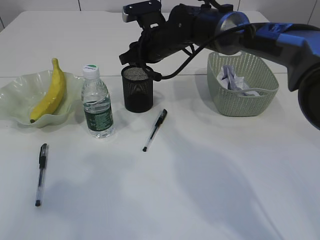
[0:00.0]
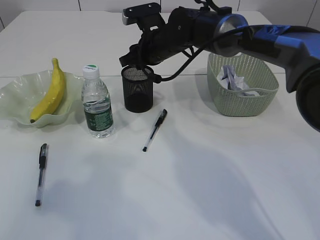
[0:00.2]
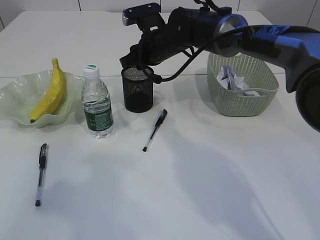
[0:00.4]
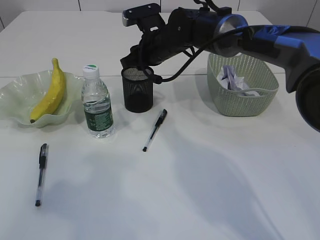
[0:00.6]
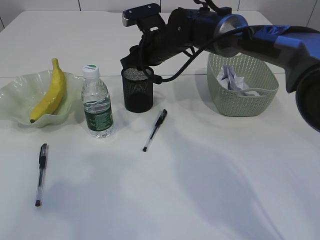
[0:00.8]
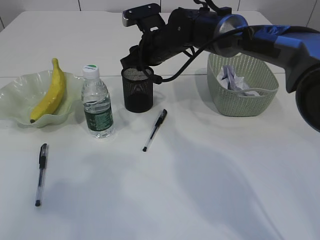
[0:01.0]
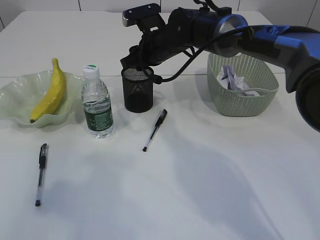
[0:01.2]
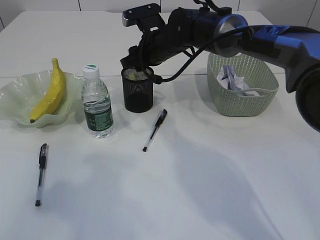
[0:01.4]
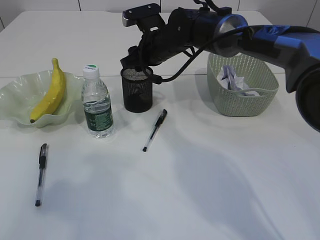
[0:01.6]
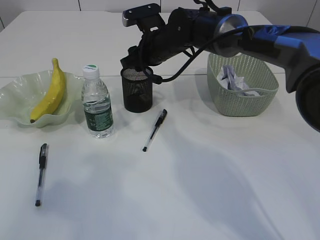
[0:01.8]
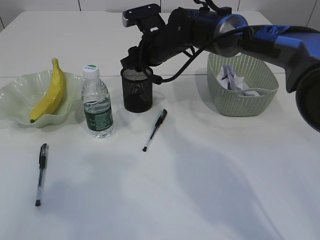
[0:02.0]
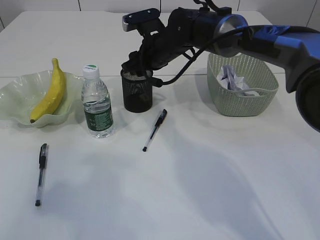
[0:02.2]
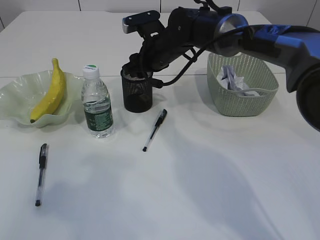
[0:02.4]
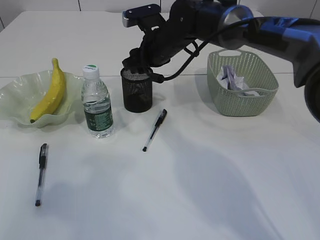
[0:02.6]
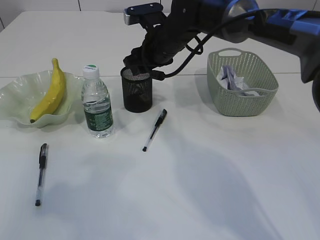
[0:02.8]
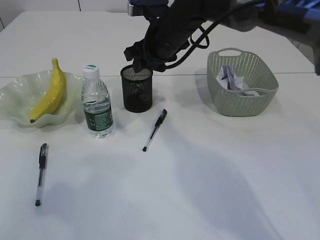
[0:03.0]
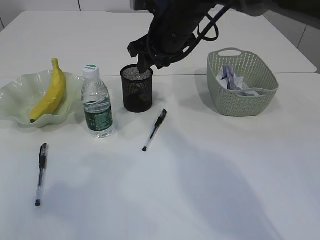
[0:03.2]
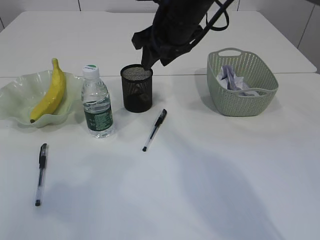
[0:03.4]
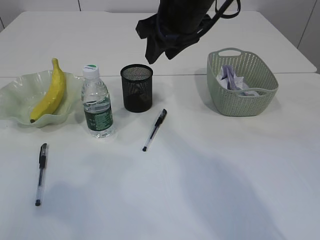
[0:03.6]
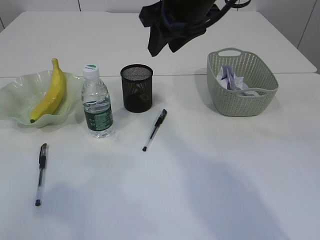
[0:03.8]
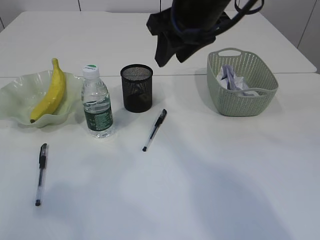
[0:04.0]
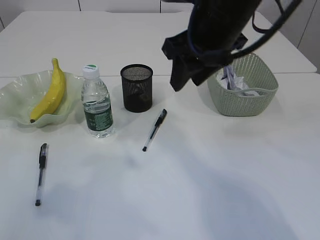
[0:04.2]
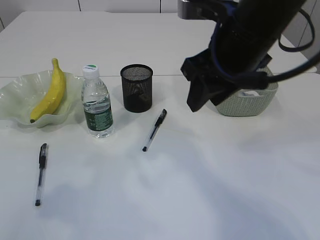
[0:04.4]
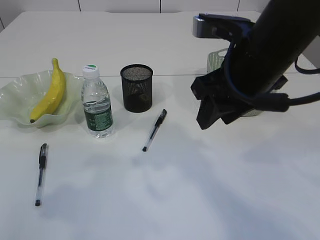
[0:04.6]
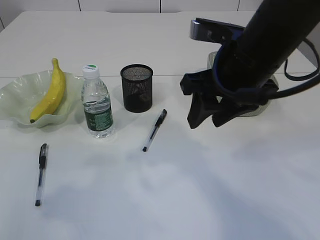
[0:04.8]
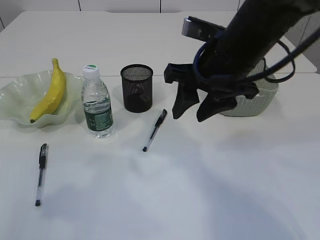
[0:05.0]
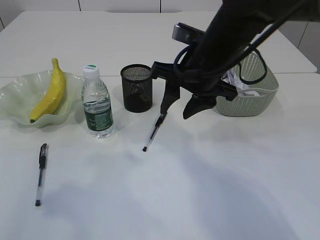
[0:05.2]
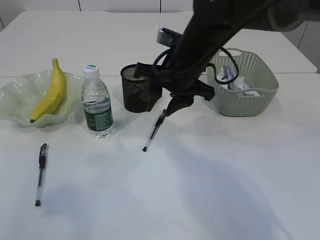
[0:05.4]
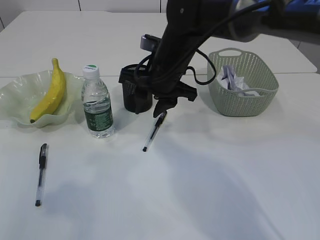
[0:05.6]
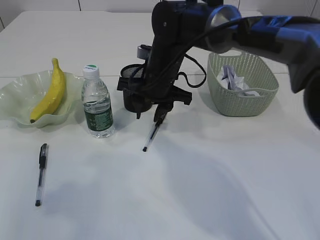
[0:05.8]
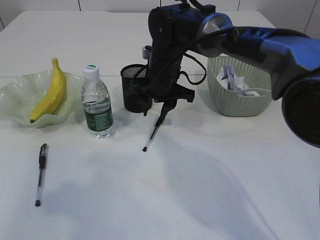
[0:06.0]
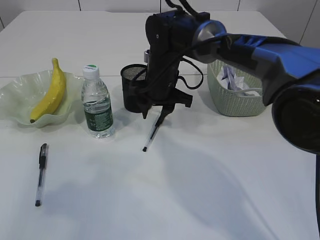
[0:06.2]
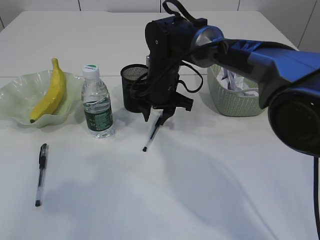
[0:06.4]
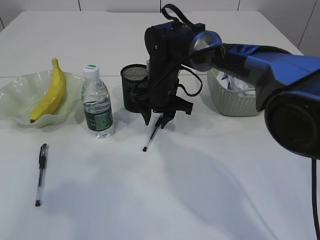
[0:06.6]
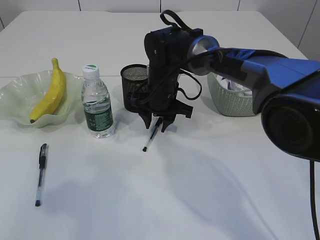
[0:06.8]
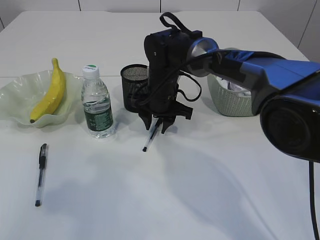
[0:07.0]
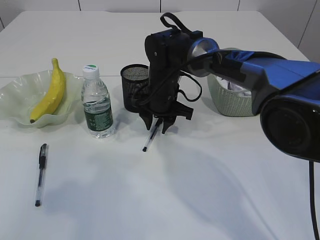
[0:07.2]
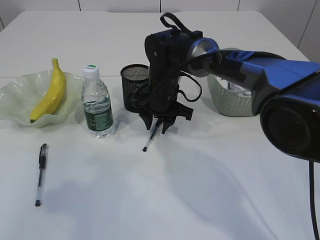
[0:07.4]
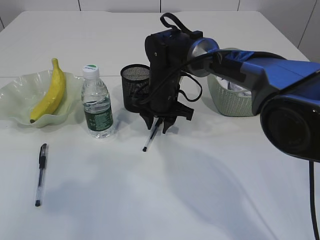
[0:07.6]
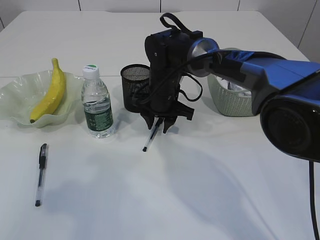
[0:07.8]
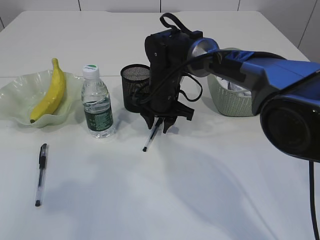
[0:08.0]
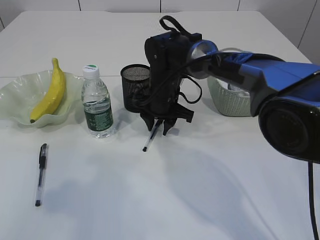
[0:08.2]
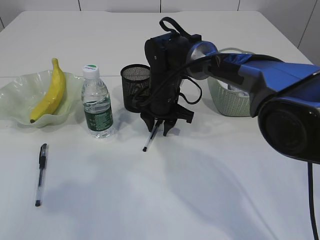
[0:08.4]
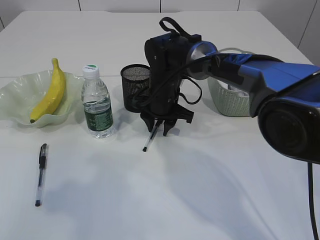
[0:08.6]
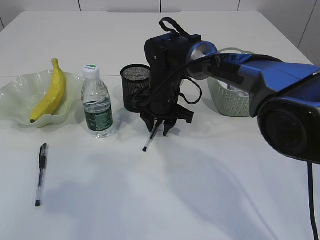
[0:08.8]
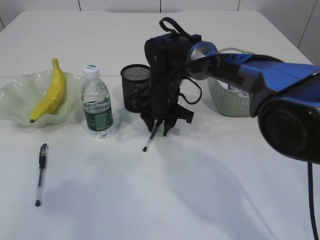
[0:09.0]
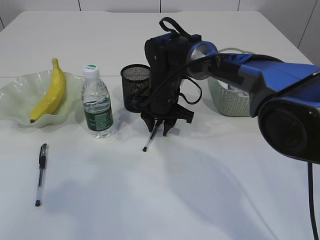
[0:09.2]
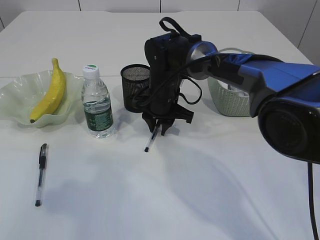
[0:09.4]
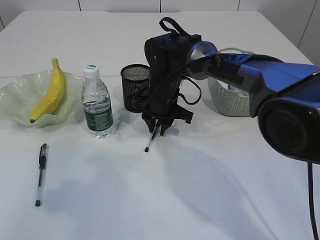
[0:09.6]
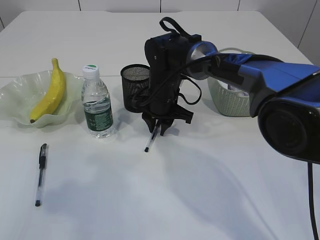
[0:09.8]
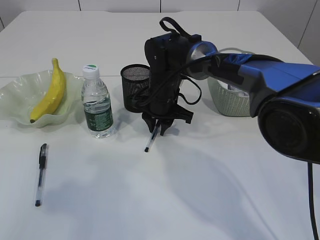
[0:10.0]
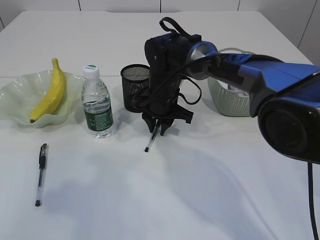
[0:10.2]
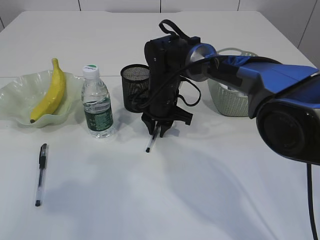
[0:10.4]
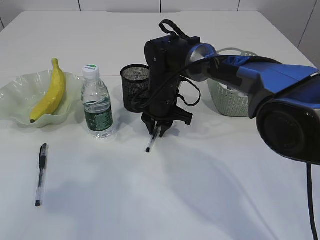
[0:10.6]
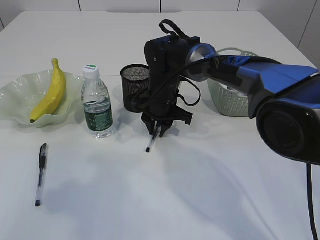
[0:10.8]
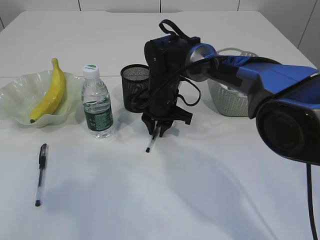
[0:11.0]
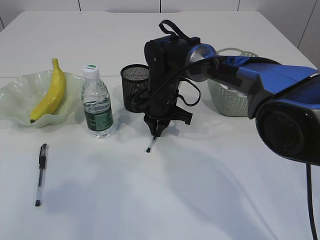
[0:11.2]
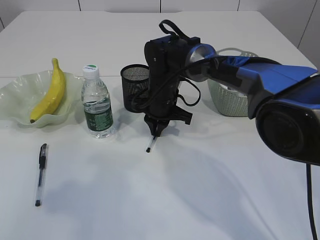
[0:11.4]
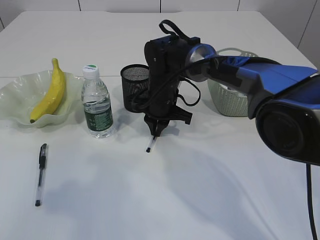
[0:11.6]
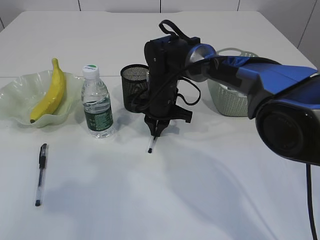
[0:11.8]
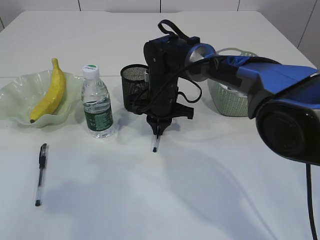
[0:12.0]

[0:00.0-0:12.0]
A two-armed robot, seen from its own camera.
Step, 0:00.0 to 0:02.6: Place the eraser into the pen holder.
0:00.0 to 0:01.6: Neither gripper changes place.
0:01.6 to 0:03.0: The grippers make only small movements.
0:03.0 to 0:04.4: The right gripper moves backward, upward and to the right, about 20 cm.
0:04.4 to 0:06.0: The right gripper is displaced downward, forward and to the left by some 20 cm.
0:06.0 to 0:07.6: The grippers move only a little.
0:07.6 to 0:10.4: The two grippers keep their place.
0:10.4 to 0:12.0: The grippers stay close to where they were, moving slightly.

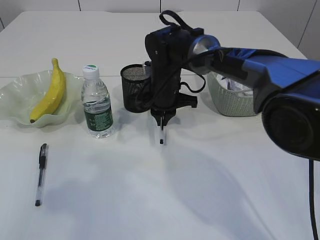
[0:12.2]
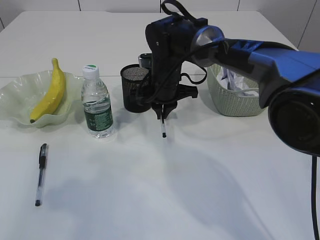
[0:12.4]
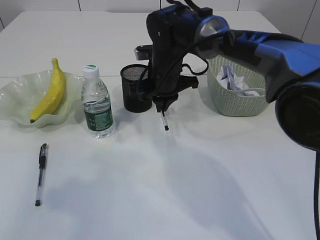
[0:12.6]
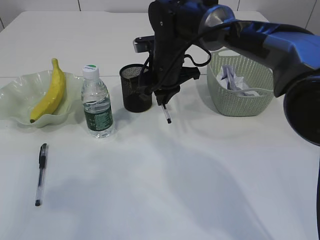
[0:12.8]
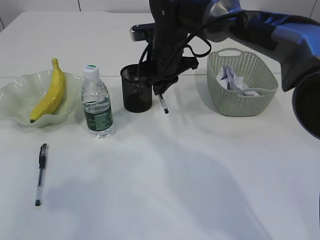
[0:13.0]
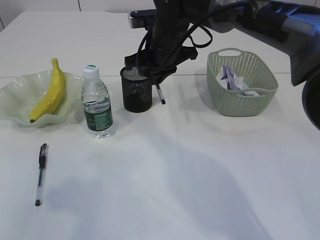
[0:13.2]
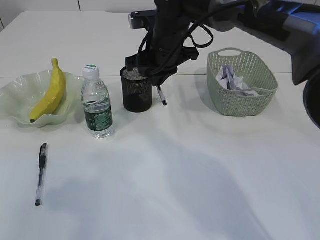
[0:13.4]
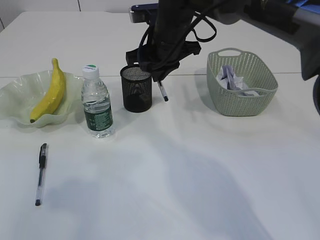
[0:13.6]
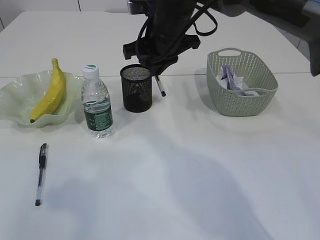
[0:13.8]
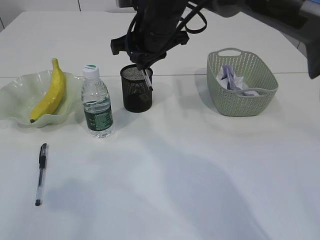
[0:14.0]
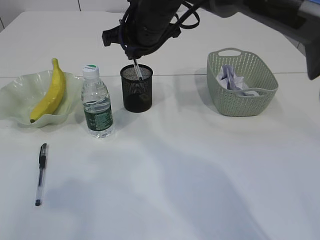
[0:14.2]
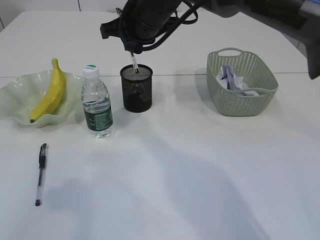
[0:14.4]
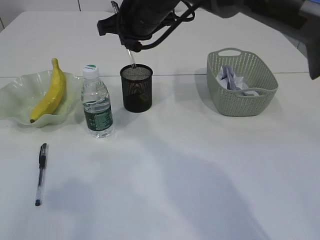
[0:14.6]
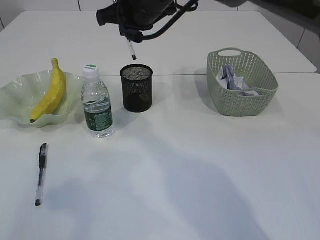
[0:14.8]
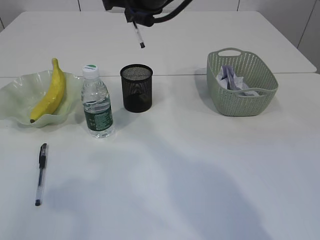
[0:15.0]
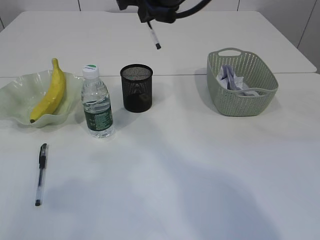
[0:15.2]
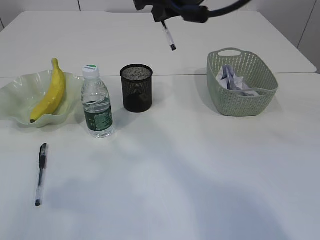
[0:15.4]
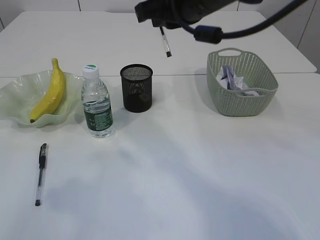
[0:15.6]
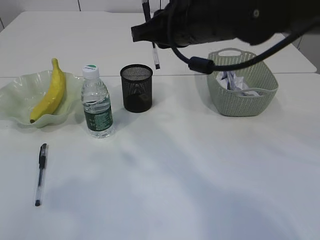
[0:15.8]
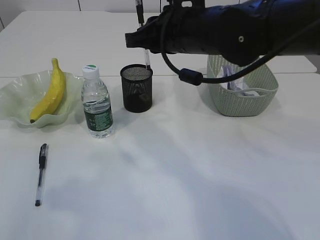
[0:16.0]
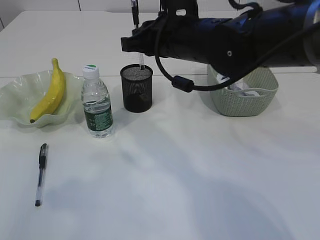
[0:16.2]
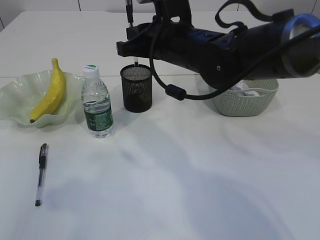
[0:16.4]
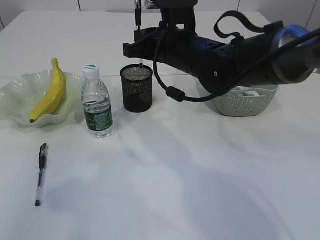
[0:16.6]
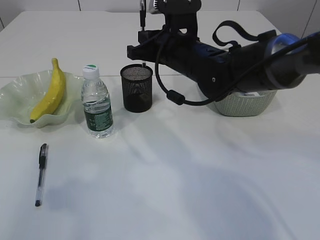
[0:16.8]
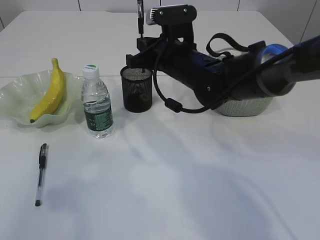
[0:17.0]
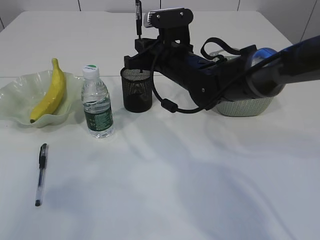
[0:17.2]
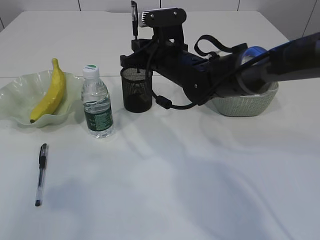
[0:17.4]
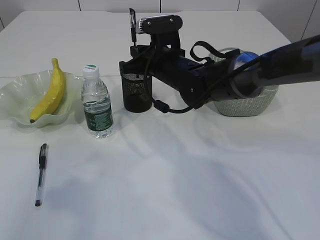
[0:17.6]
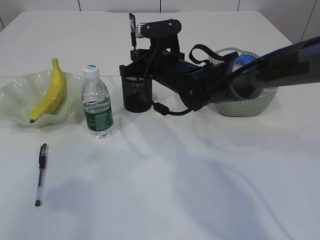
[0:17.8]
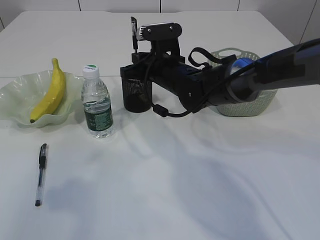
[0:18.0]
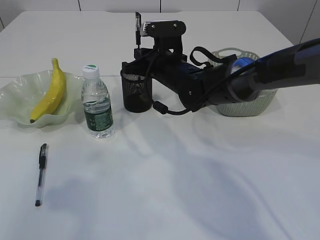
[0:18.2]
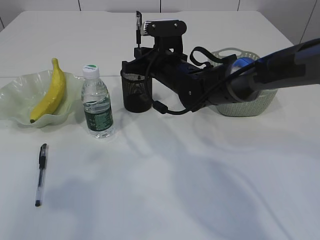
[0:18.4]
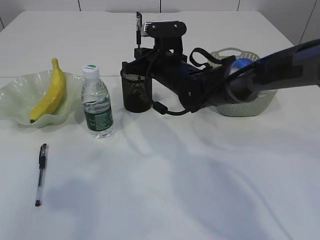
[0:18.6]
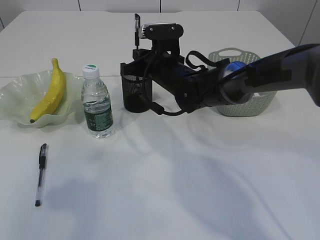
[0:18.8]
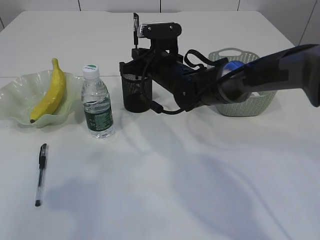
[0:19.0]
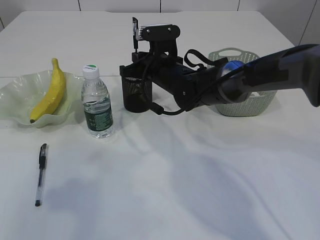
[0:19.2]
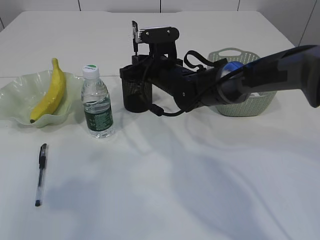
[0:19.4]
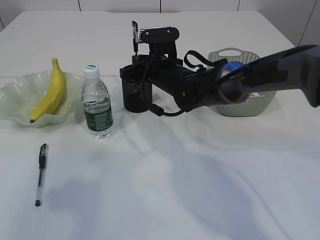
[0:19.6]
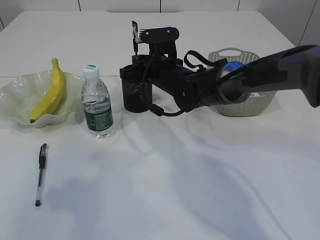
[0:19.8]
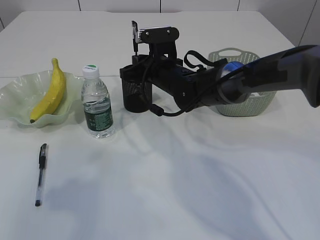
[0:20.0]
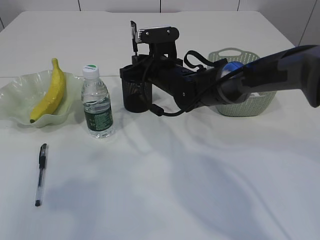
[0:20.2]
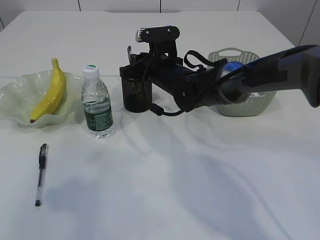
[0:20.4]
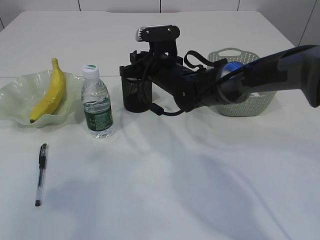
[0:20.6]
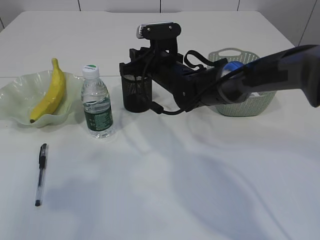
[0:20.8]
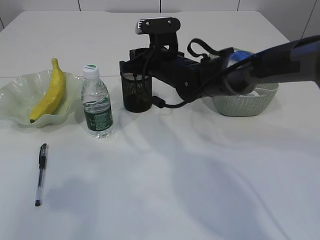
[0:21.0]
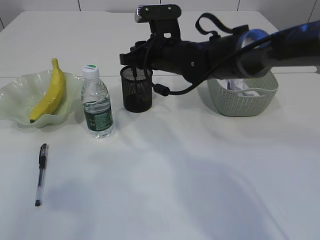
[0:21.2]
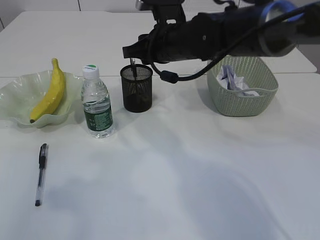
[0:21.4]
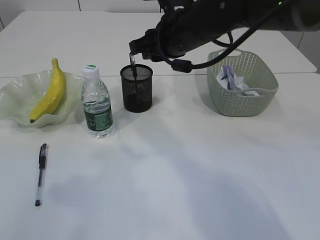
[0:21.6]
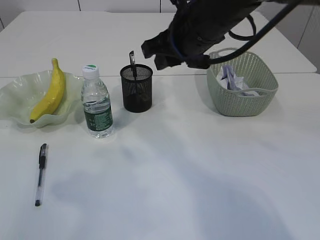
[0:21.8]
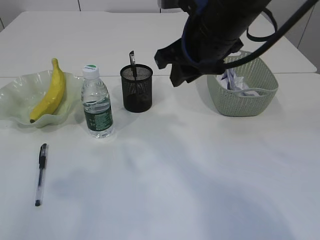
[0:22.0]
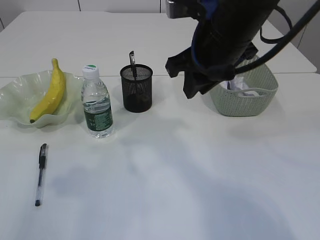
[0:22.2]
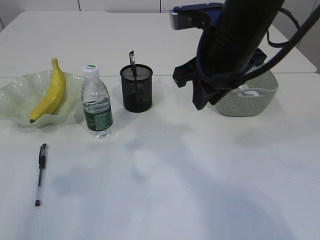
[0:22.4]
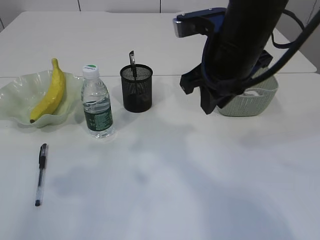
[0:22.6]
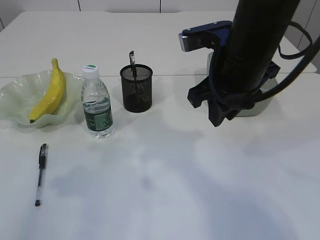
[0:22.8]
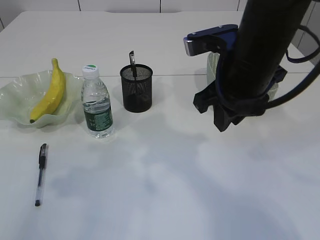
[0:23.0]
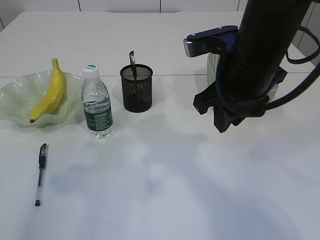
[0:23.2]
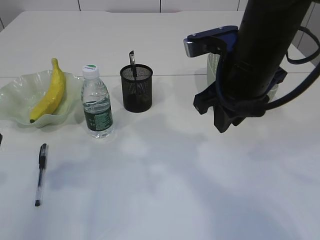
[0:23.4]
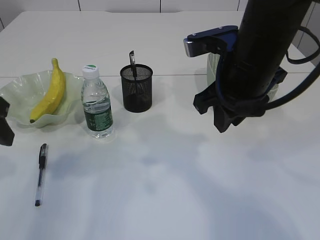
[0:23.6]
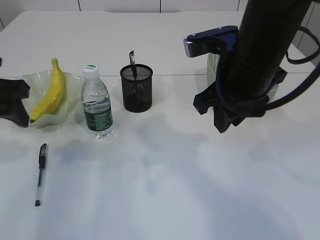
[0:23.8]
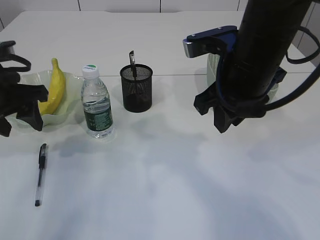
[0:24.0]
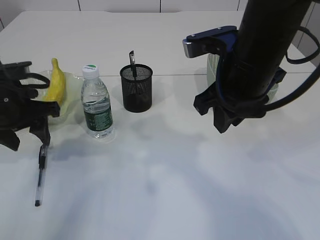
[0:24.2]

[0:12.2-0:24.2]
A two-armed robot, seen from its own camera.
Step, 0:12.4 to 0:21.4: Place the pen into the pen holder.
0:12.2 to 0:13.8: The right gripper shifts about 15 cm upward.
0:13.8 to 0:15.2: The right gripper goes approximately 10 cm upward.
0:15.2 to 0:16.6: The right gripper moves downward, some 10 cm.
0:16.6 to 0:18.2: The right gripper heads downward, covering about 5 cm.
0:18.2 to 0:19.8: The grippers stay close to where they were, moving slightly.
0:19.8 to 0:21.2: The right gripper shifts by some 5 cm, and opens its fingers.
0:21.2 to 0:22.6: The right gripper goes some 15 cm backward, upward and to the right.
0:22.6 to 0:24.2: The left gripper moves forward and downward, roughly 20 cm.
